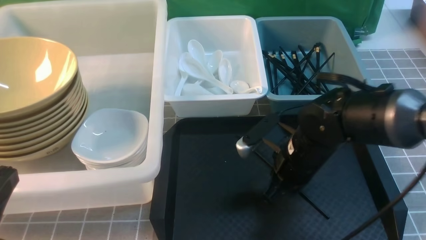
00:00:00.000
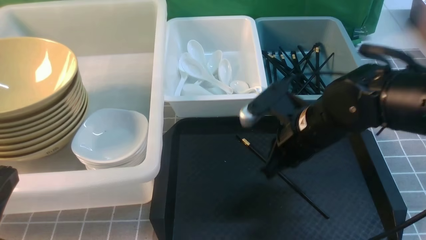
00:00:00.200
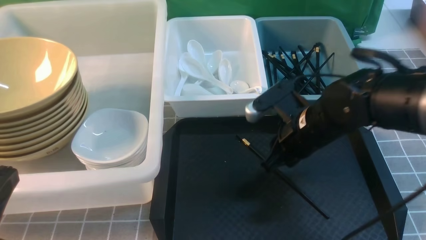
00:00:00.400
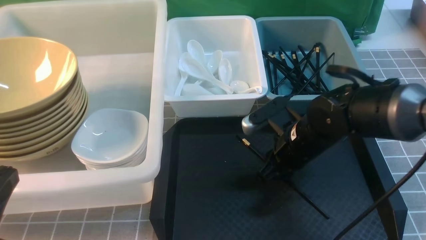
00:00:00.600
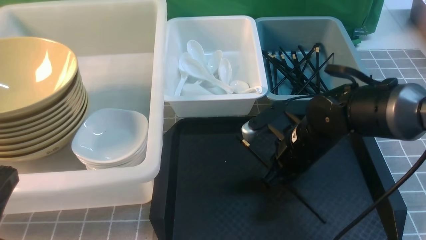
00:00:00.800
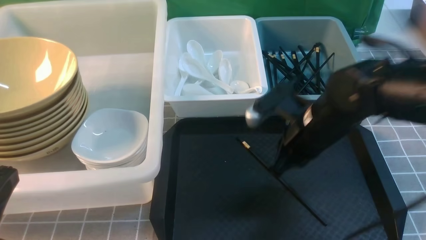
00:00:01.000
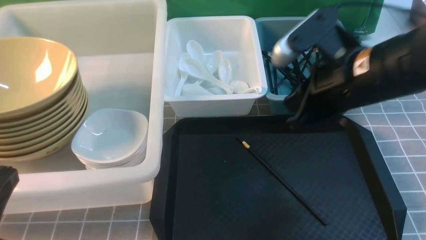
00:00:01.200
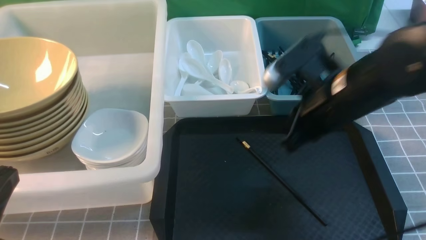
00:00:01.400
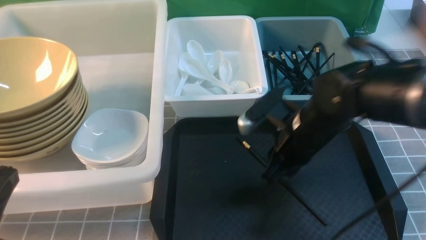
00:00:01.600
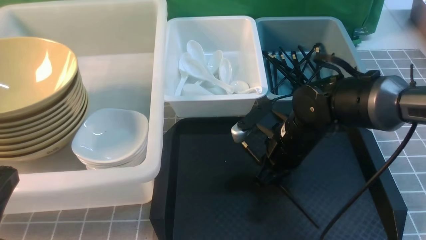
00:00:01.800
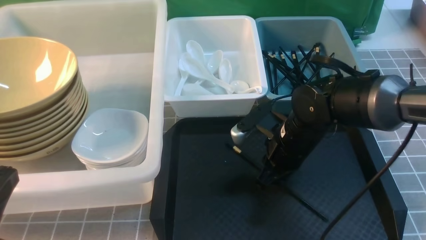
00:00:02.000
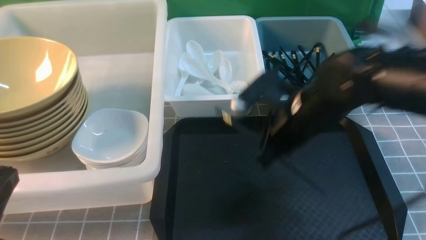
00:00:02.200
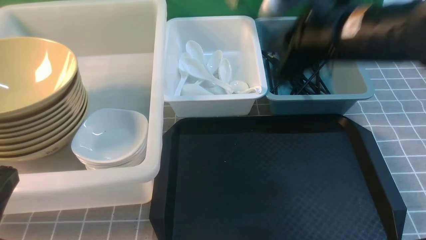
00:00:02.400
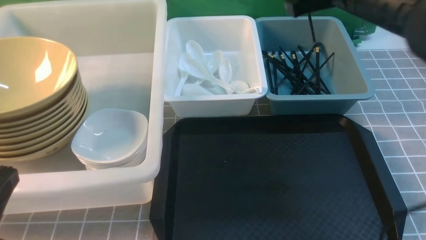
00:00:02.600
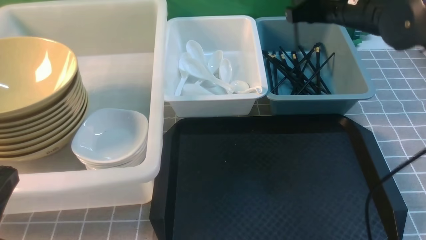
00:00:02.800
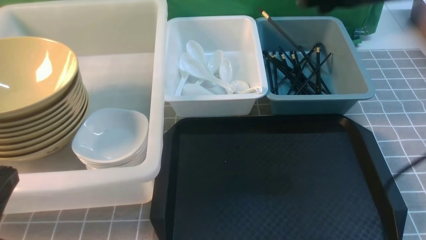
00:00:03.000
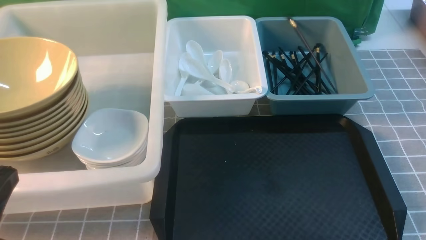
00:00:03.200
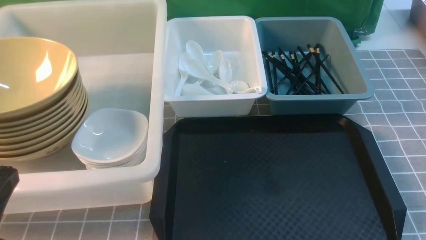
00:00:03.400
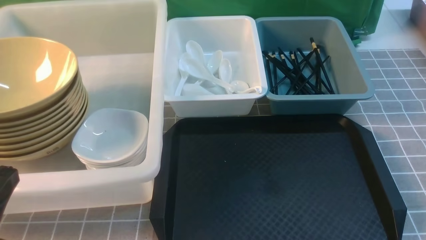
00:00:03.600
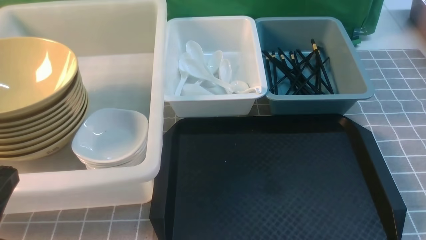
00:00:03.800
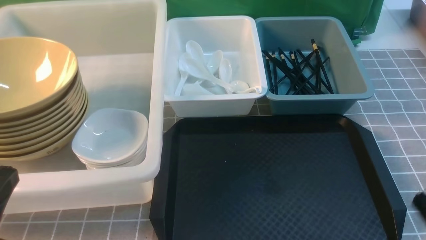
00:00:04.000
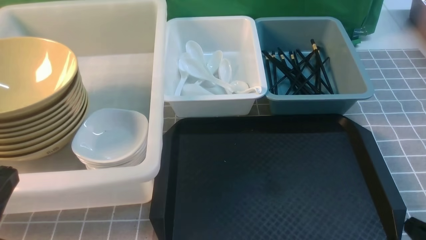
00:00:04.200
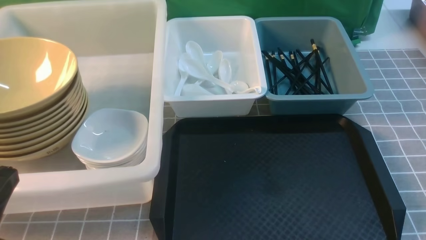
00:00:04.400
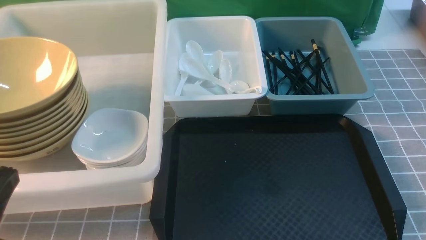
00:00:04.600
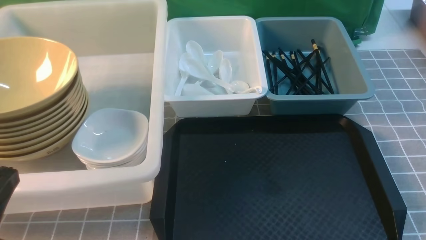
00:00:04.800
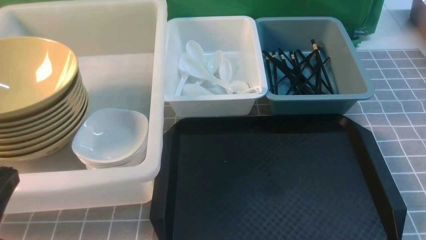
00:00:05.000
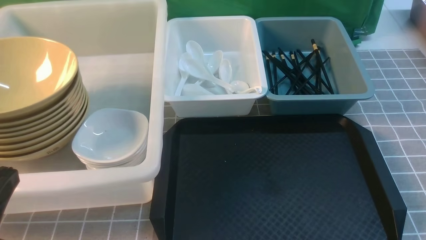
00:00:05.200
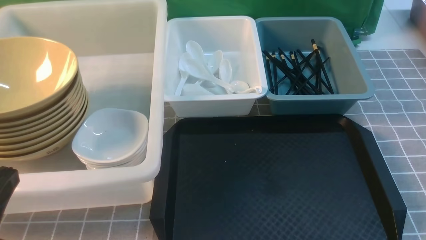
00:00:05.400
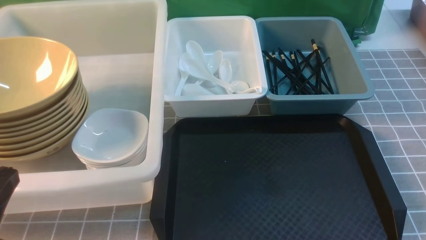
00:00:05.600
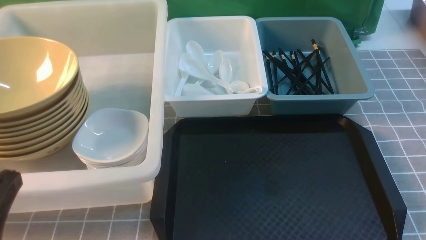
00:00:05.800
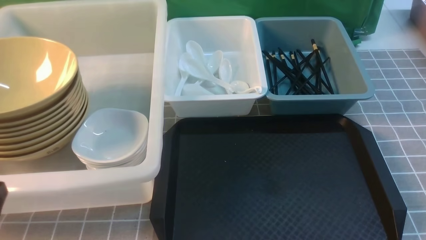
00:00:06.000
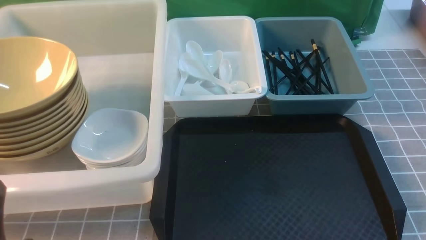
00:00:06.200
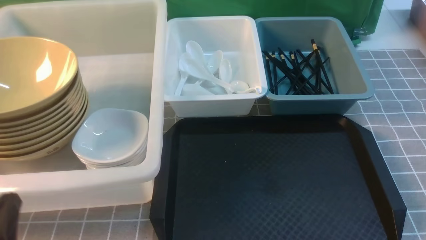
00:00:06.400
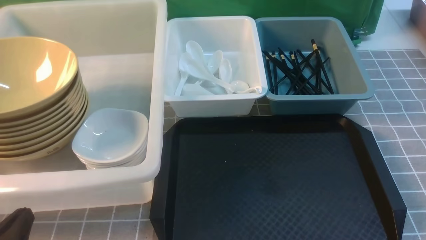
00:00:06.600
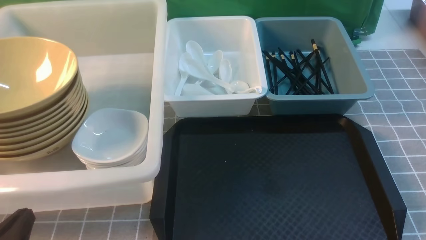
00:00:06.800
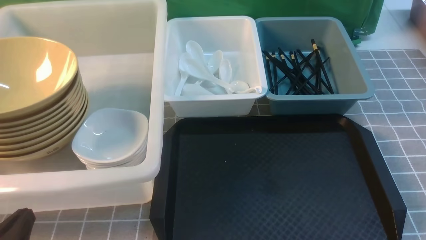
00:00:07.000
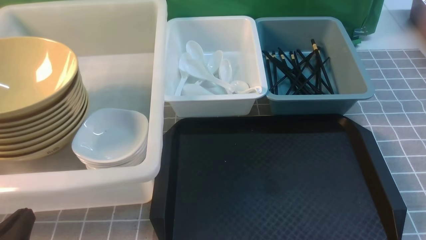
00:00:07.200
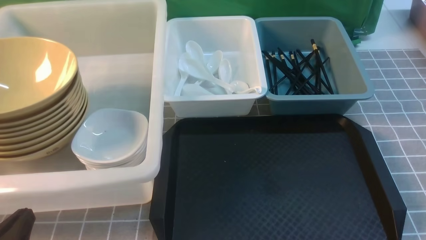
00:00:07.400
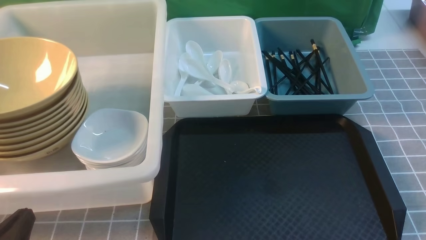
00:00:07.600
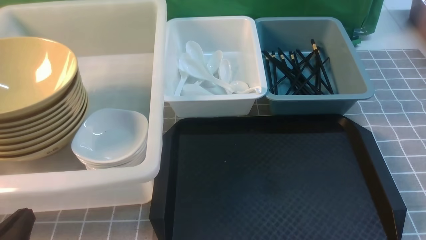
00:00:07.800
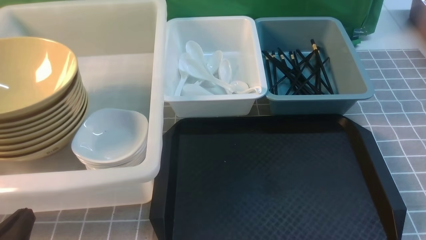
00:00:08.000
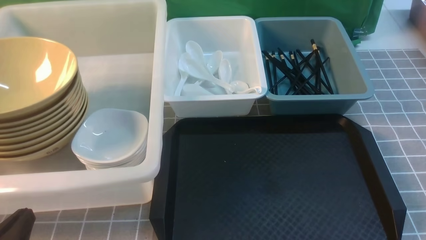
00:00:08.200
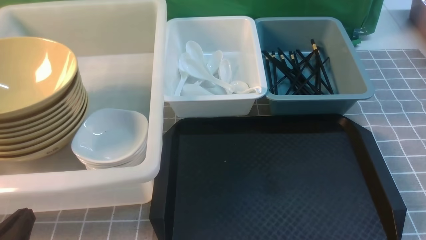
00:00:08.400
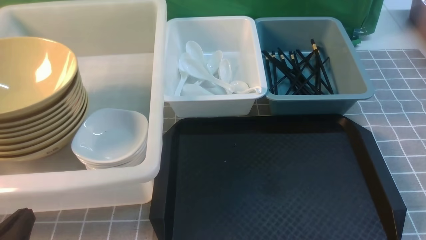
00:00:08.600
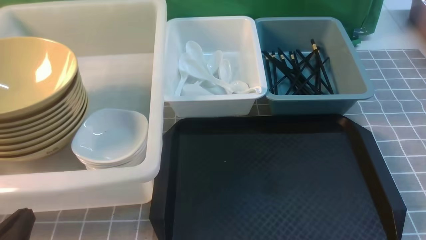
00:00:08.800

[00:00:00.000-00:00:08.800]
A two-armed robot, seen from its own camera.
Task of the whole recording: on grey table put chopsticks spoon bowls plates into blue grey white boxes.
Step, 00:00:00.000 to 00:00:02.000: use the right arm to grab a chopstick.
Step, 00:00:02.200 to 00:00:03.400: use the right arm to put a chopstick into the small storage box on the right.
00:00:00.000 to 00:00:01.400: The right gripper travels upward by approximately 5 cm.
00:00:01.400 to 00:00:03.000: The right gripper shifts some 15 cm upward and to the right.
00:00:03.000 to 00:00:04.400: The right gripper heads backward and downward, covering approximately 35 cm, and closes its fingers.
00:00:04.400 to 00:00:05.800: There are only small adjustments of the grippers.
00:00:05.800 to 00:00:07.400: The left gripper shifts approximately 10 cm downward.
00:00:07.400 to 00:00:08.800: The two grippers keep their place.
